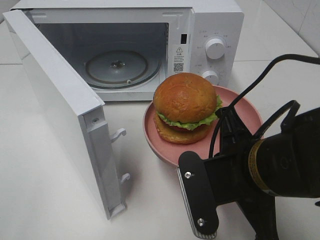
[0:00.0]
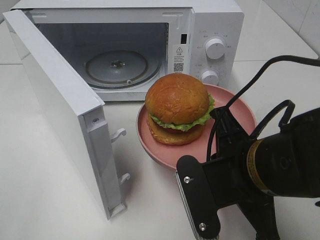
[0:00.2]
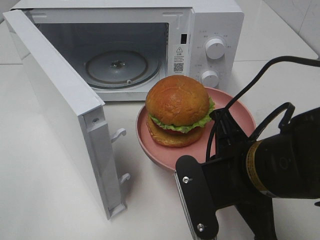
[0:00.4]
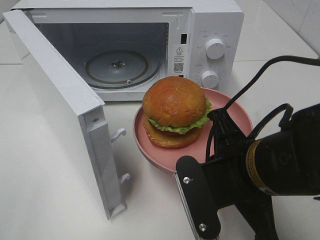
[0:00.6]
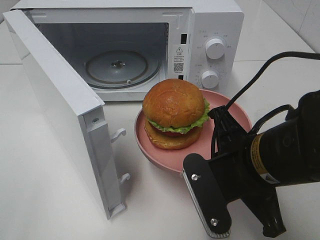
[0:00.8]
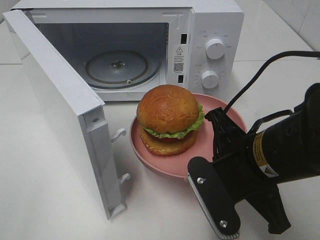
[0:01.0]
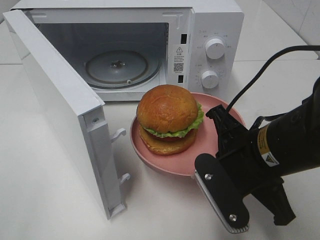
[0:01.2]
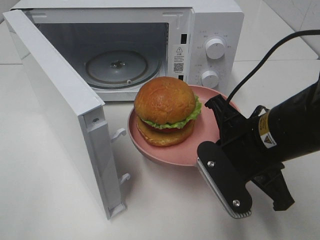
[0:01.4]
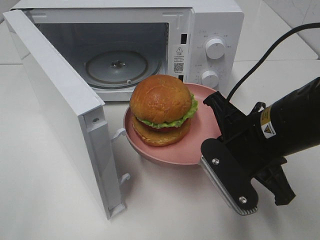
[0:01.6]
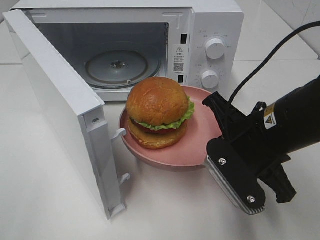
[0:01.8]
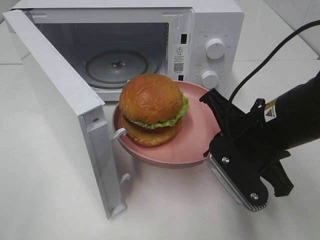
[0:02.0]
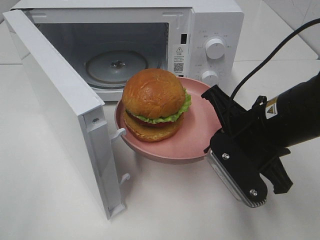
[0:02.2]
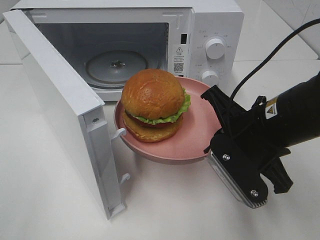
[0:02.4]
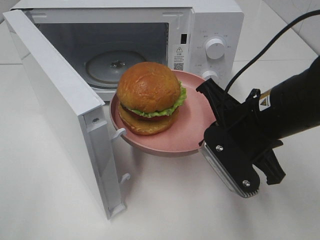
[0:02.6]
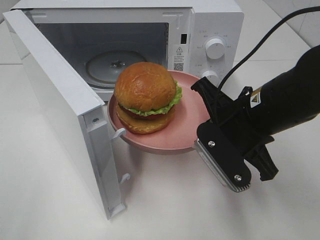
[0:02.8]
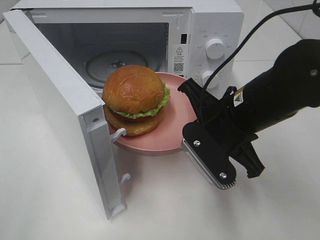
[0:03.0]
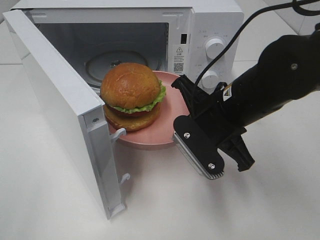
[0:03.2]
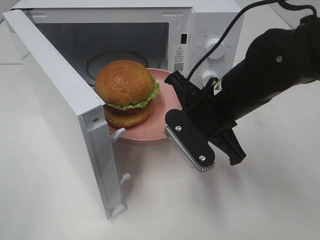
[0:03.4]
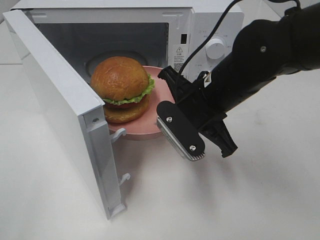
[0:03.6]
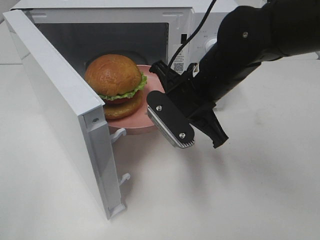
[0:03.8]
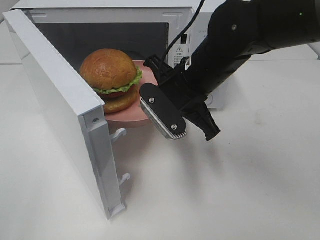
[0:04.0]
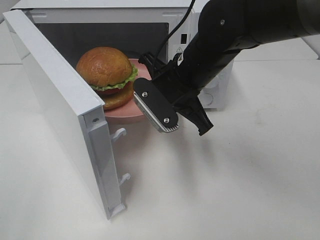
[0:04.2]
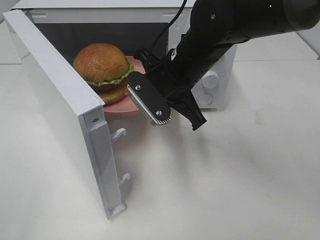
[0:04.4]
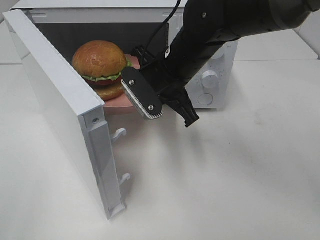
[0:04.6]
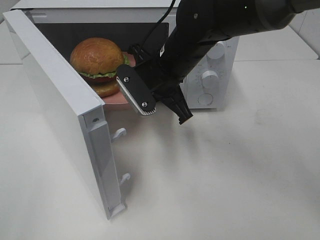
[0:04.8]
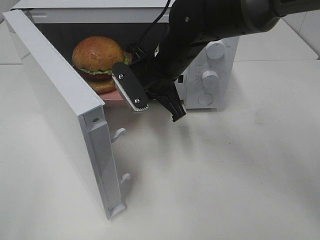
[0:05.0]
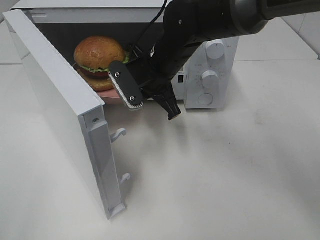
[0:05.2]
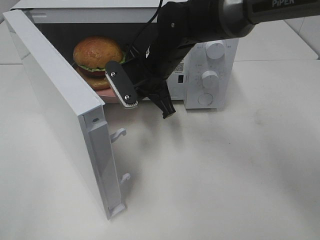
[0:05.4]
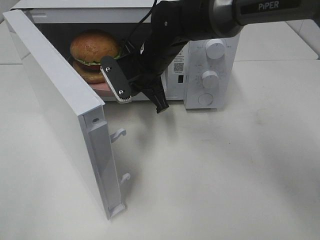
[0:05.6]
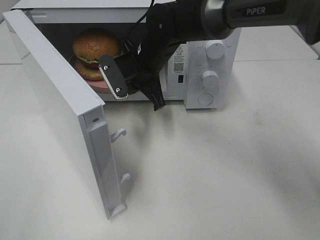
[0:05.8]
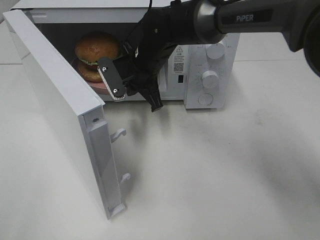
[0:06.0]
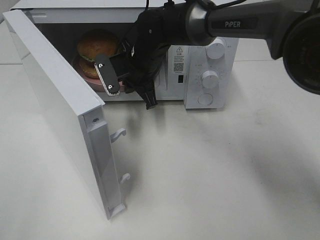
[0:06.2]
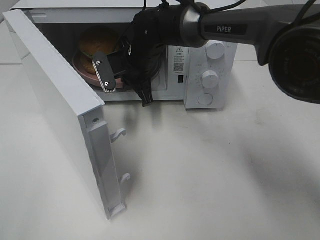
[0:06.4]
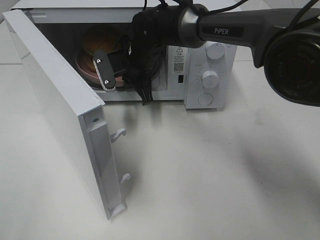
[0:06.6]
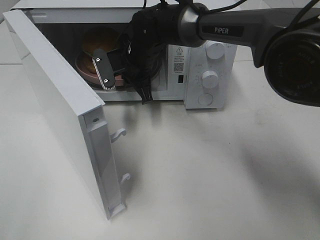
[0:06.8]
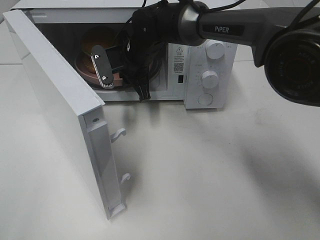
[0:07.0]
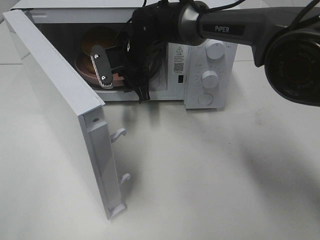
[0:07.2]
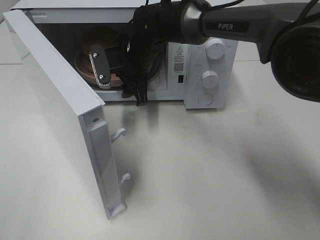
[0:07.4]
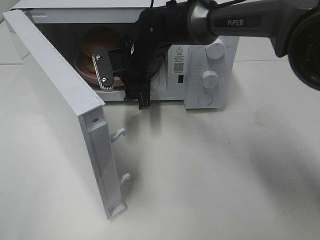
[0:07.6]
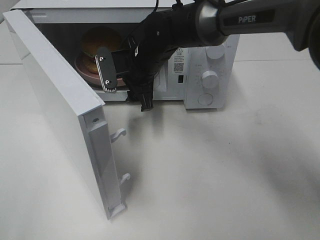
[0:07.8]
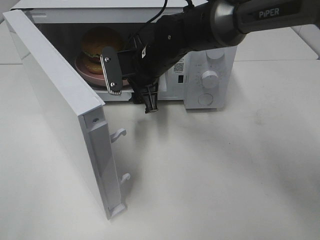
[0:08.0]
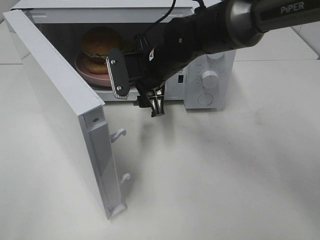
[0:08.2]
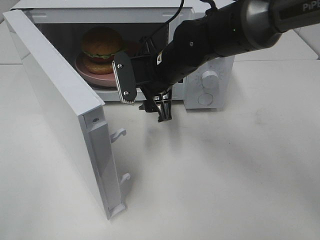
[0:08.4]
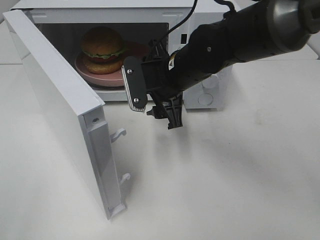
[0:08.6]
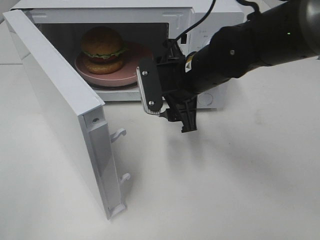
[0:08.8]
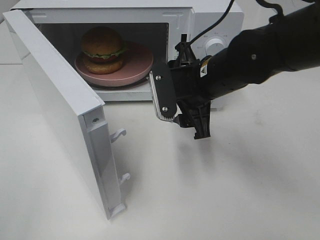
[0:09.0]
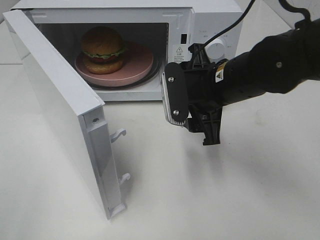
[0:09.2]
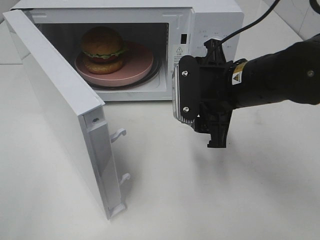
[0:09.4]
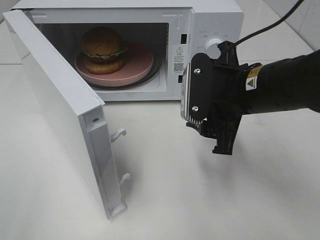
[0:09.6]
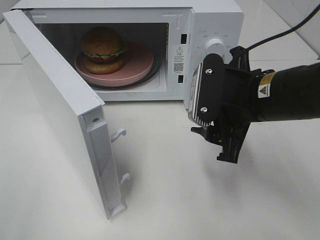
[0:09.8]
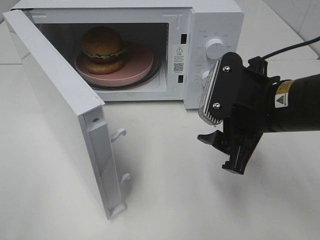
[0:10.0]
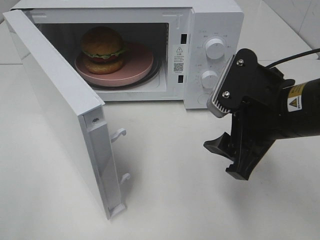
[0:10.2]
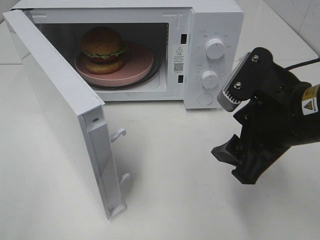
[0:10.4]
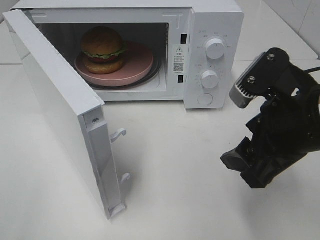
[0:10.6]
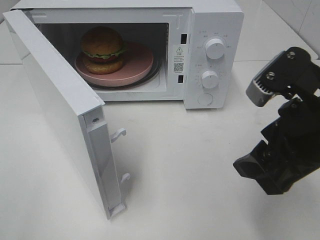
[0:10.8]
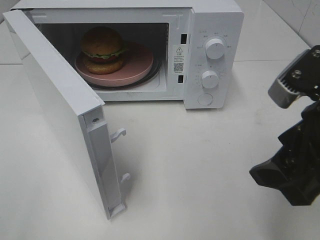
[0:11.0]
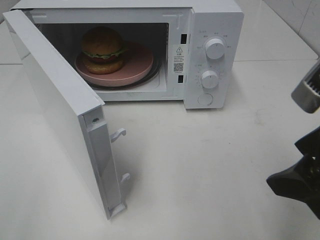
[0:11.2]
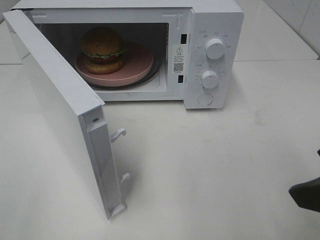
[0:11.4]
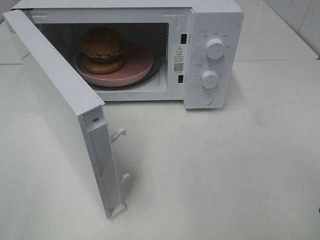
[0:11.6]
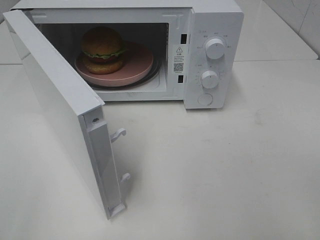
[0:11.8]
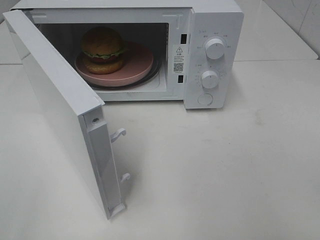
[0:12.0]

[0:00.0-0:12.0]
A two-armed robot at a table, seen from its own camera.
Task of the whole recording: Heat the burger.
Step, 0:00.0 to 0:07.0: Right hand: place the plate in the microwave.
0:00.0 to 0:01.6: The right gripper travels forward by some 5 cm.
0:03.0 to 0:04.4: The right gripper shifts about 10 cm forward and to the left.
0:04.4 to 0:06.0: The right gripper goes about 10 cm forward and to the left.
0:06.0 to 0:07.6: The right gripper opens.
0:07.6 to 0:09.0: The right gripper goes roughly 15 cm backward and to the right.
0:09.0 to 0:10.4: The right gripper is displaced backward and to the right by about 15 cm.
0:10.4 to 0:12.0: The right gripper heads backward, to the right and upward, covering approximately 20 cm.

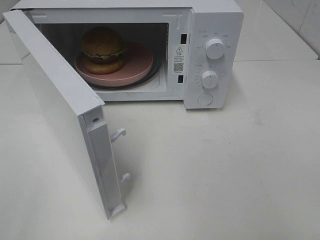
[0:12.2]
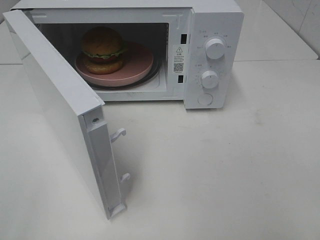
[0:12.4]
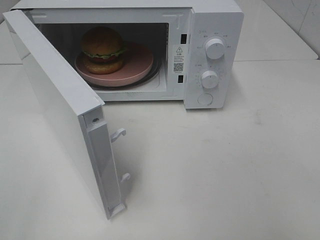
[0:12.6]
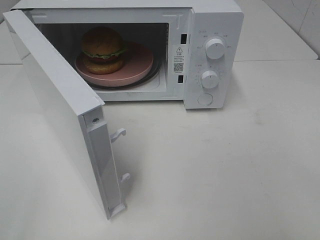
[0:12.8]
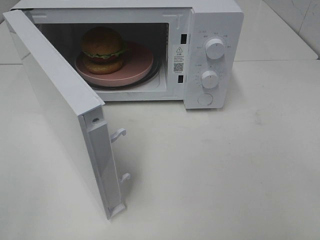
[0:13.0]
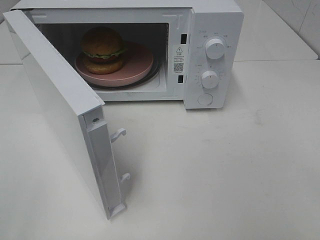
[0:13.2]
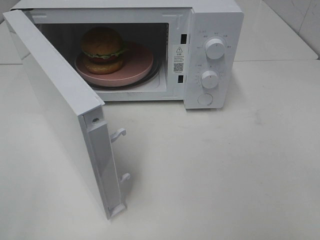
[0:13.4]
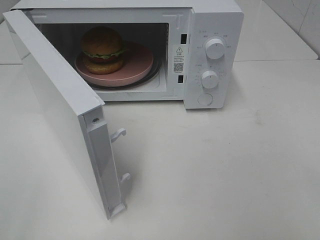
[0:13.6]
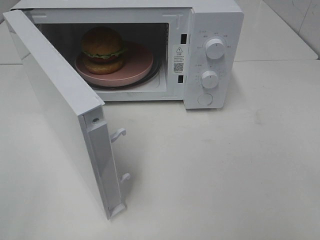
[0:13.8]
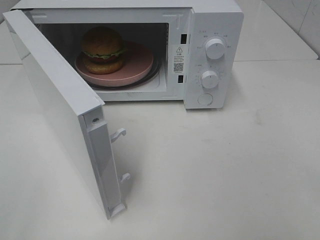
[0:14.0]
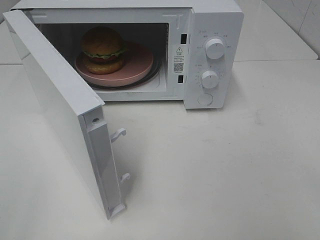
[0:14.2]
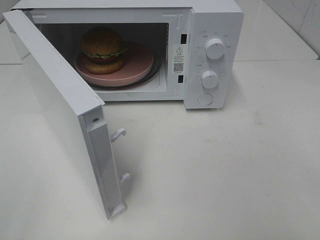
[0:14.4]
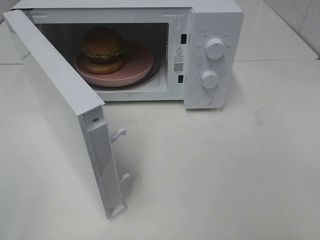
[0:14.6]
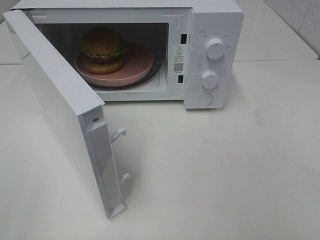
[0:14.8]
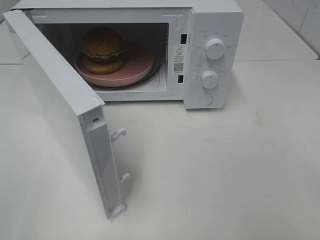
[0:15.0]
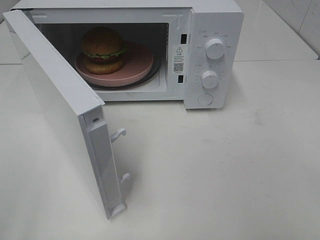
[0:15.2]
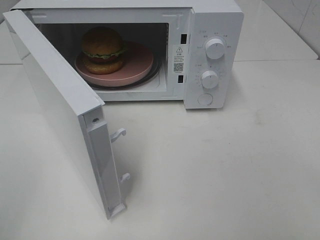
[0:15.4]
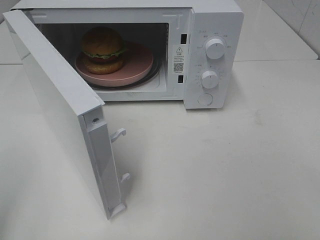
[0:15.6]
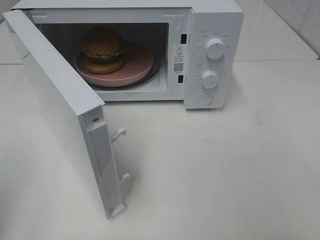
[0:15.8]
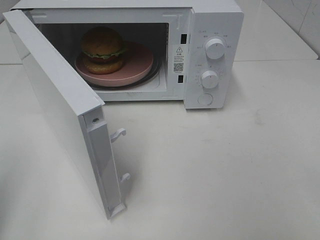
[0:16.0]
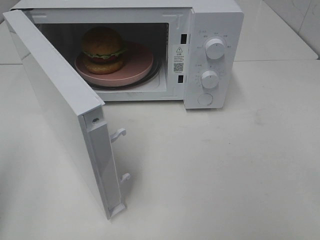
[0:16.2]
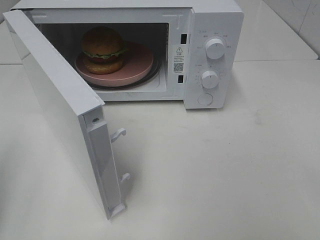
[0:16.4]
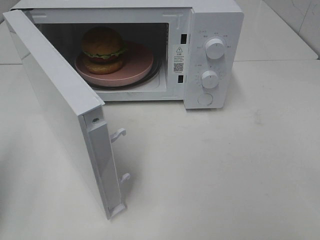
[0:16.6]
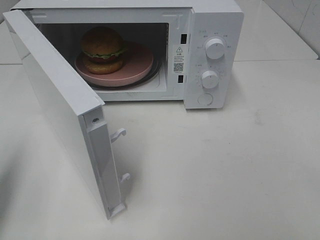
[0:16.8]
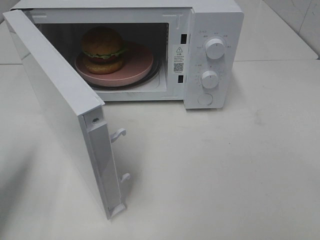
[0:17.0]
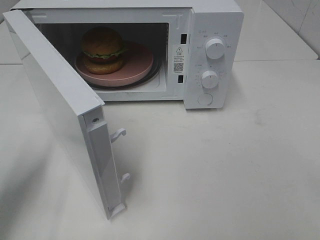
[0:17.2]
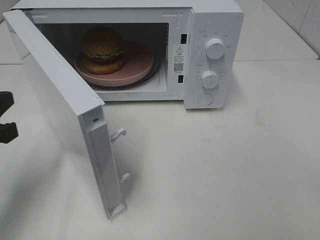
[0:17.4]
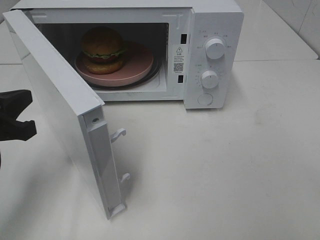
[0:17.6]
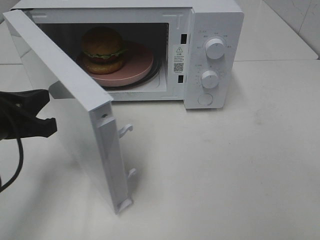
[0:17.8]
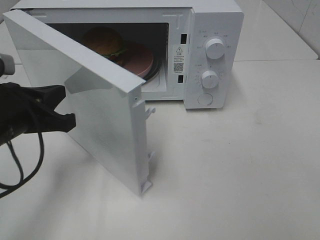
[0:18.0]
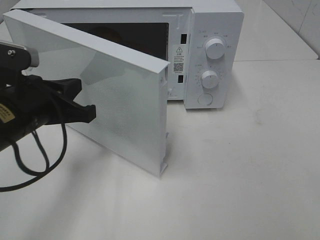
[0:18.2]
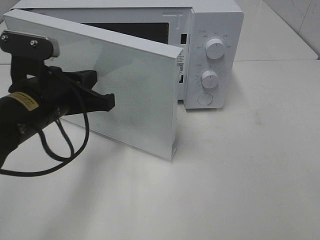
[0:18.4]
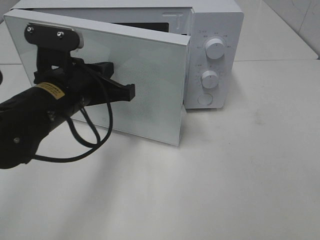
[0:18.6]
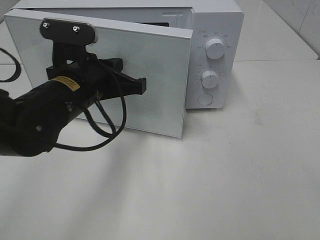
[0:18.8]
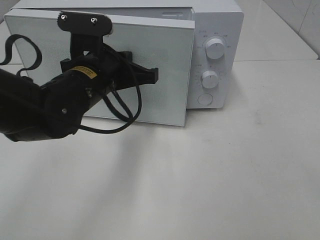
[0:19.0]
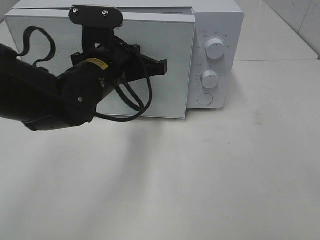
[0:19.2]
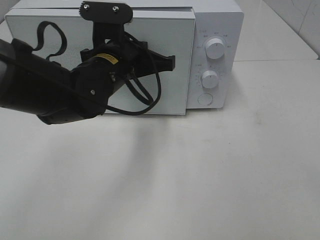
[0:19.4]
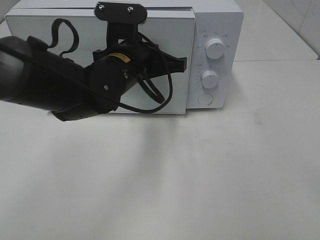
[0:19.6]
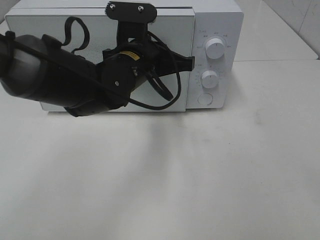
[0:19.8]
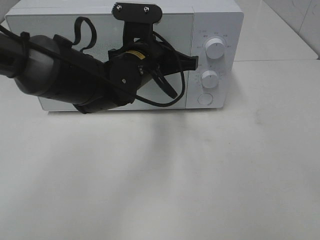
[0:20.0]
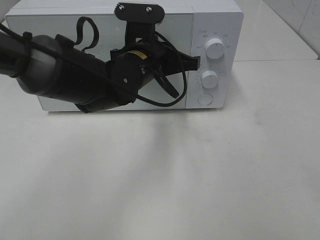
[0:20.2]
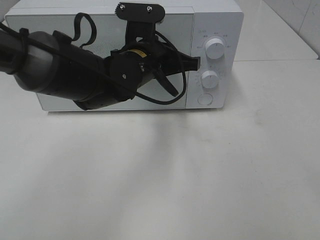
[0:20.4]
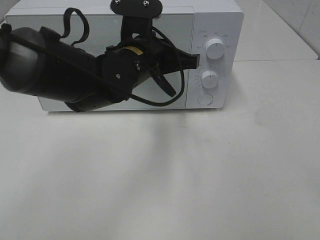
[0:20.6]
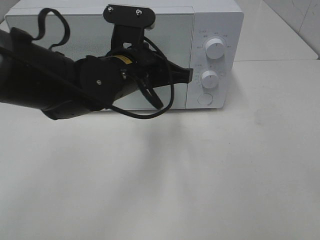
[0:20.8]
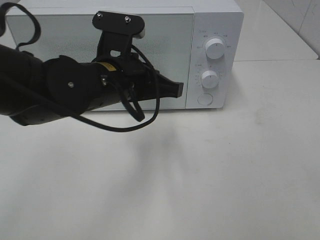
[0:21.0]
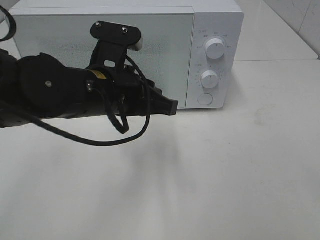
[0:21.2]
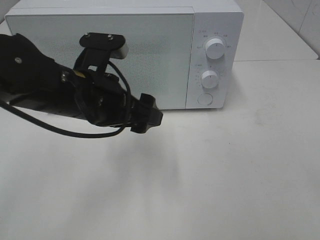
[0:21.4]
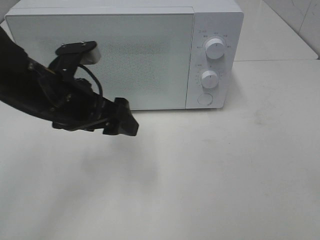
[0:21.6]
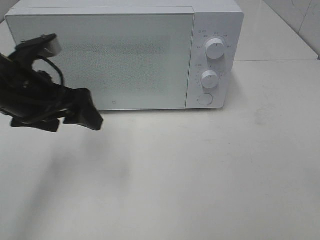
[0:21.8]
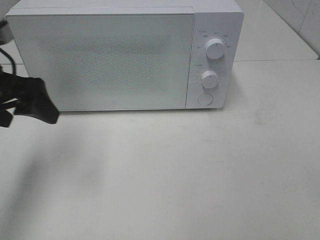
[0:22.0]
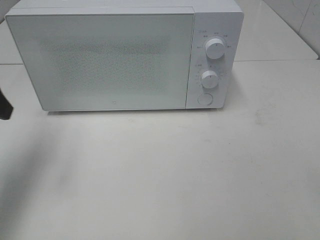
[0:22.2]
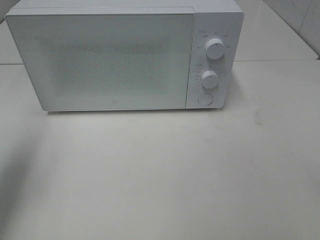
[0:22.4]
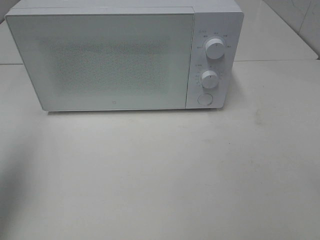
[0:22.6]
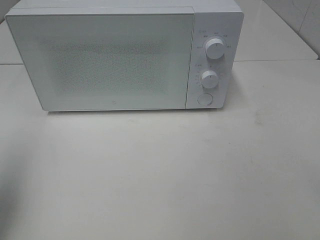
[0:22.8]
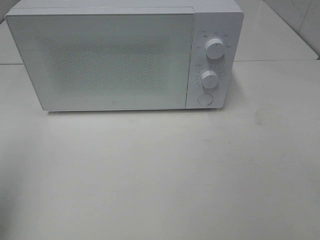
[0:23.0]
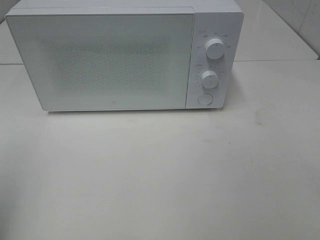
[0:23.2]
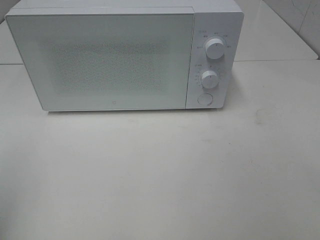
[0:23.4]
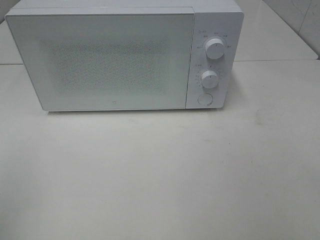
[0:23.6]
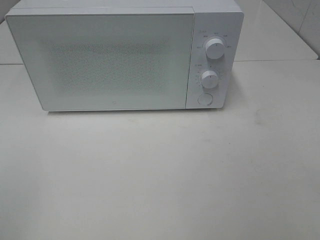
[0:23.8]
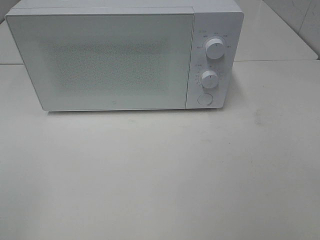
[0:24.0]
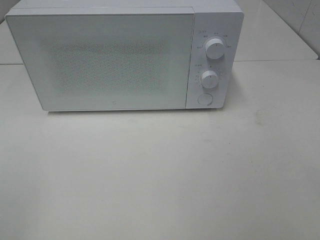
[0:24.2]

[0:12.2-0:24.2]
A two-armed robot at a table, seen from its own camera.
Task of the whole recording: Heat the burger.
Step, 0:12.2 to 0:20.6: Left hand: close the microwave door.
0:16.6 to 0:18.2: The left gripper goes approximately 20 cm to the right and forward.
0:18.2 to 0:19.8: The left gripper is displaced to the right and forward by approximately 20 cm.
0:19.8 to 0:21.2: The left gripper is displaced backward by about 10 cm.
0:21.2 to 0:22.6: The left gripper is displaced to the left and upward by roughly 25 cm, and opens.
0:22.6 to 0:24.2: The left gripper goes some 20 cm backward.
